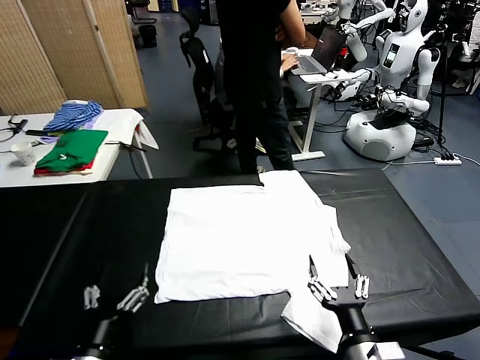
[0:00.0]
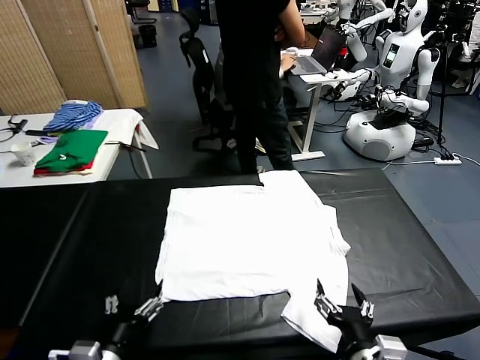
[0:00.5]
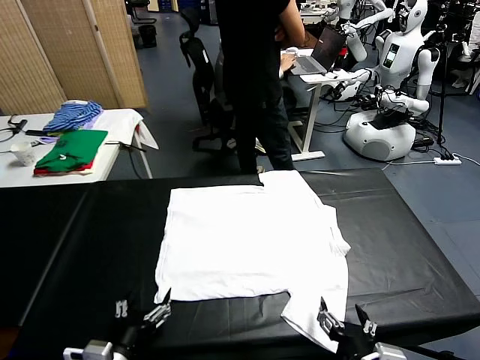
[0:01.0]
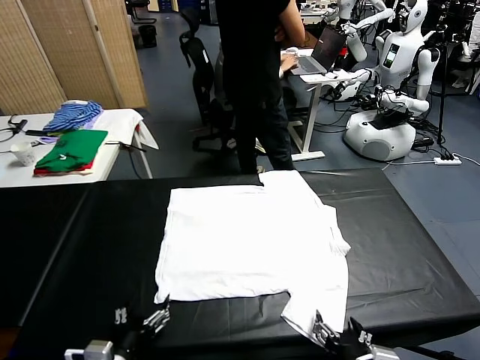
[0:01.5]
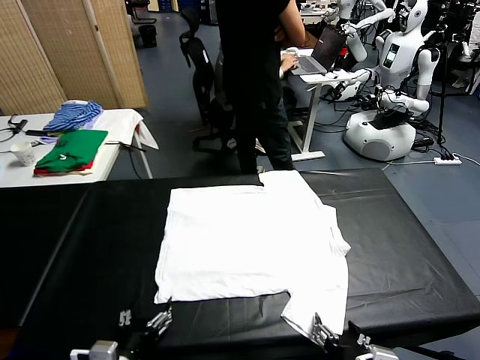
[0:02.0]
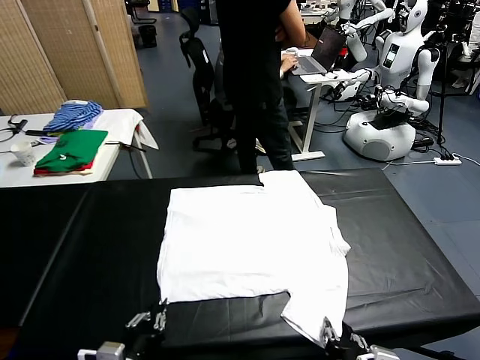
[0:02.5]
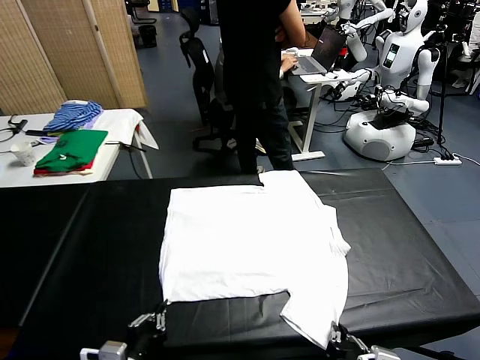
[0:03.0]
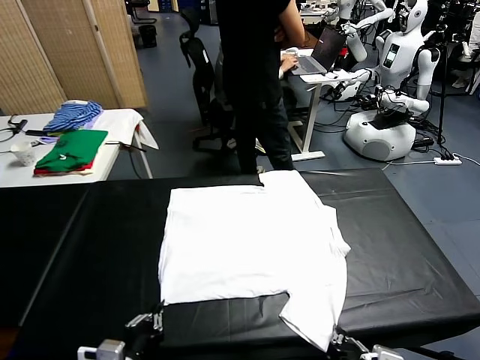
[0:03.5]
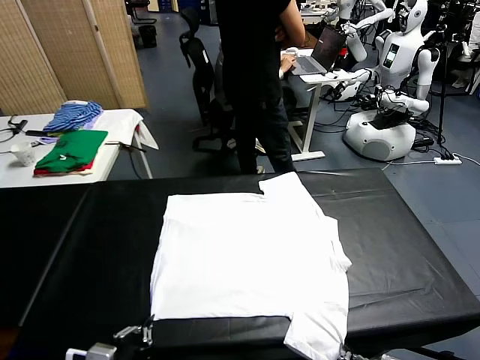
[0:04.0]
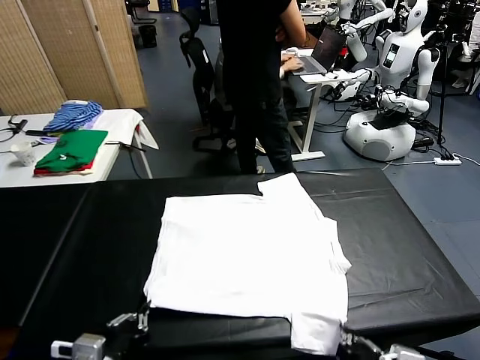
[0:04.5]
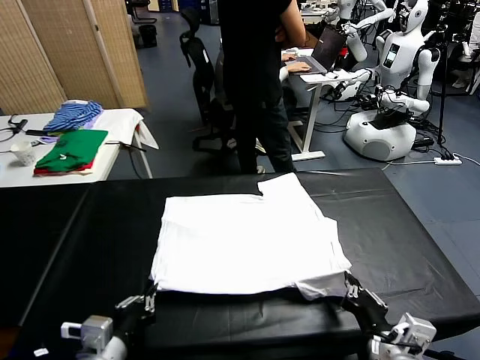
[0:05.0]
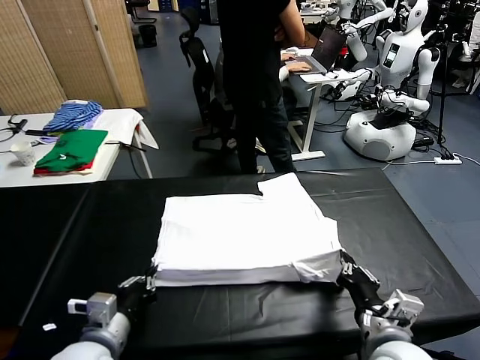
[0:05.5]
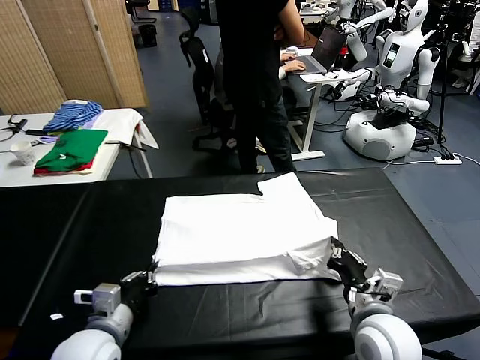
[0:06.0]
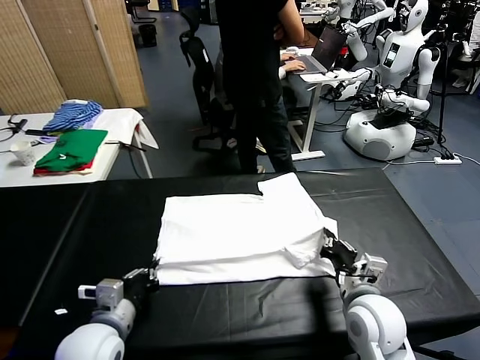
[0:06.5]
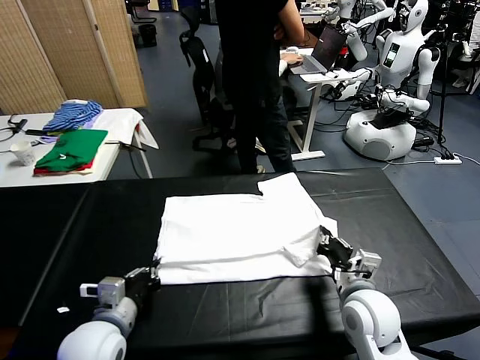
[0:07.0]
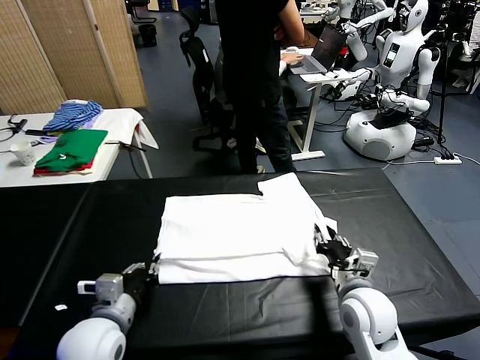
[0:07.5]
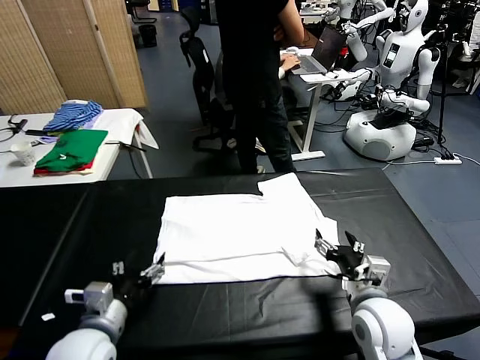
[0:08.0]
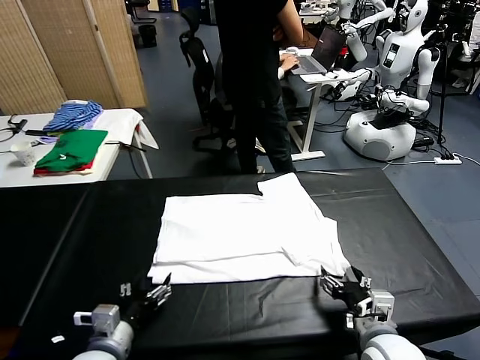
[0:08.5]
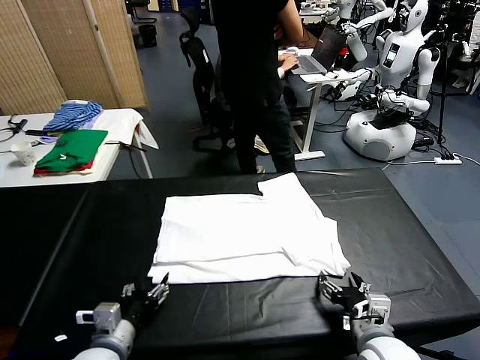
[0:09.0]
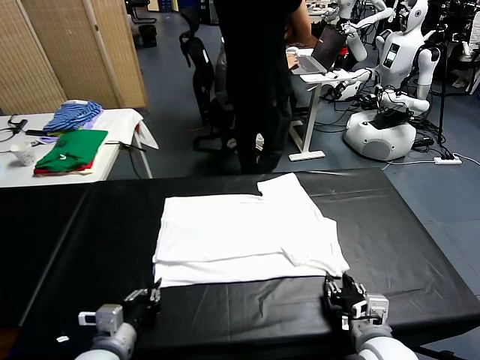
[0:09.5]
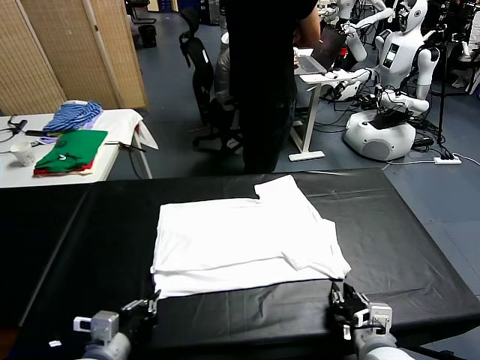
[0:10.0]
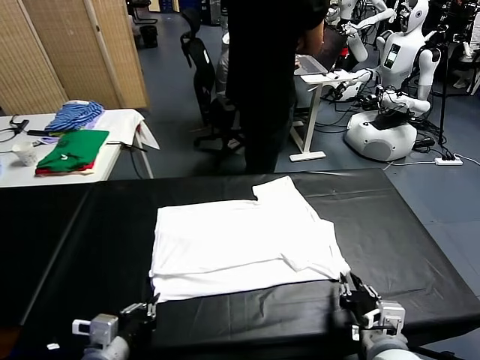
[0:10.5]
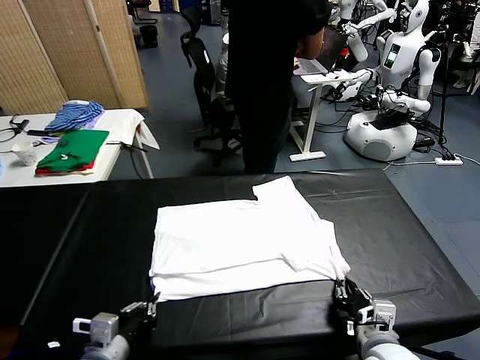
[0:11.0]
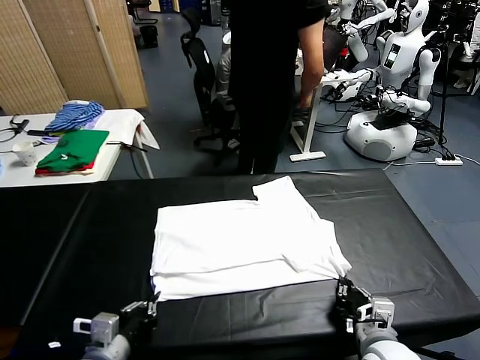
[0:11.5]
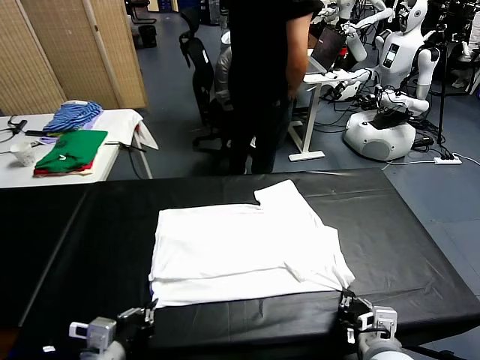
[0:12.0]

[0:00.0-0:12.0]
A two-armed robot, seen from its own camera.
Task of the whole recording: fold and organize the clothes.
Step, 0.0 to 4.5 s: use both grippers simultaneously to clamp the lower edge of the clothing fabric.
Step, 5.0 to 7.5 s: use both grippers to drag the lower edge of the fabric forward and fold it over the upper edge.
2.0 to 4.0 s: The right gripper closes its fingers, while the left gripper closes its fingers.
4.0 to 6.0 s: The left gripper heads forward, covering about 10 cm, while the right gripper is displaced forward by approximately 15 cm.
6.0 to 8.0 s: The left gripper opens up; the right gripper opens its fingers.
8.0 to 10.0 s: The left gripper closes; the right gripper travels backward by roughly 5 cm, and closes.
10.0 to 12.0 s: The grippers stay close to where they were, moving slightly.

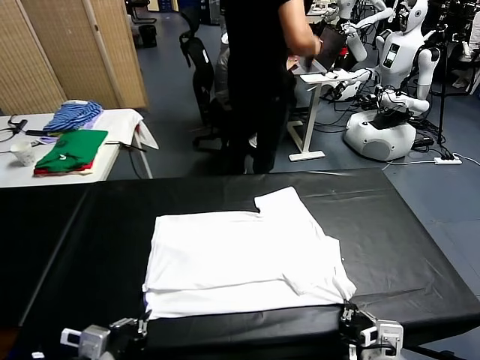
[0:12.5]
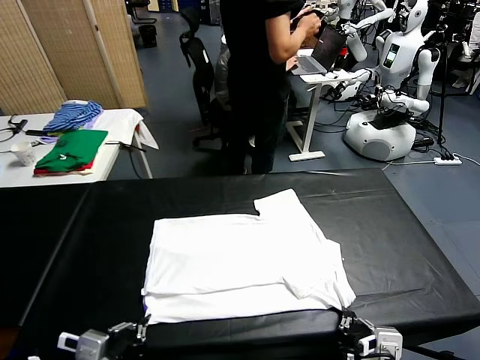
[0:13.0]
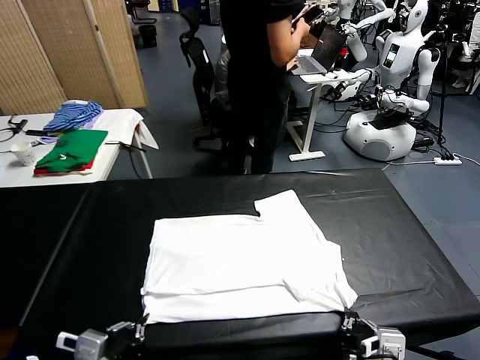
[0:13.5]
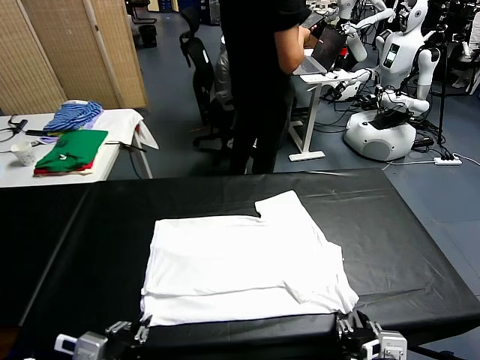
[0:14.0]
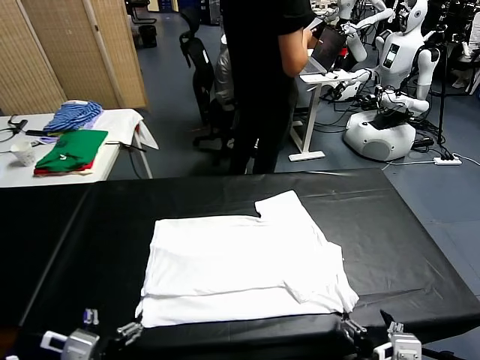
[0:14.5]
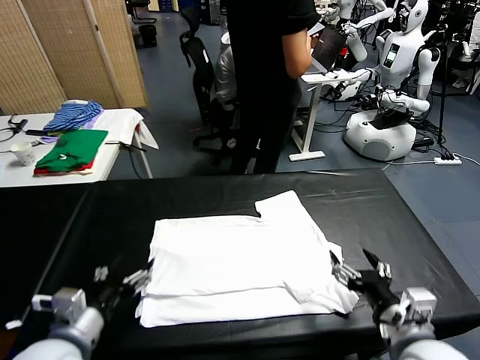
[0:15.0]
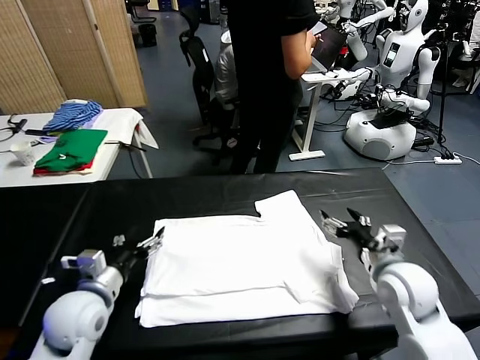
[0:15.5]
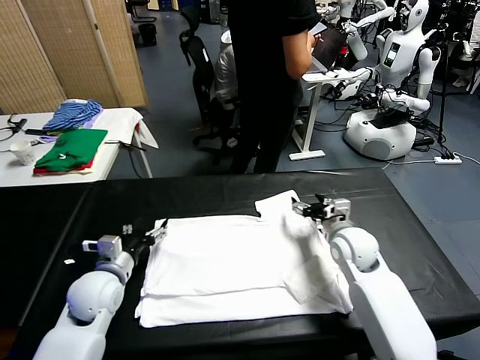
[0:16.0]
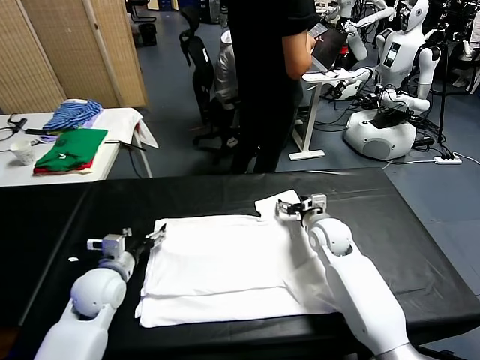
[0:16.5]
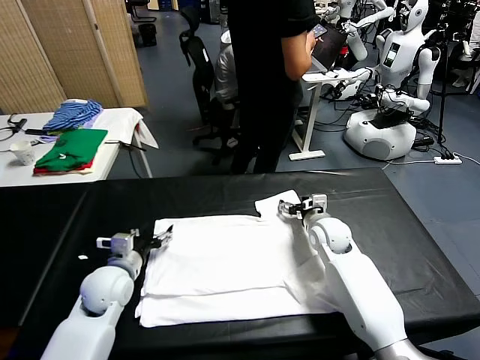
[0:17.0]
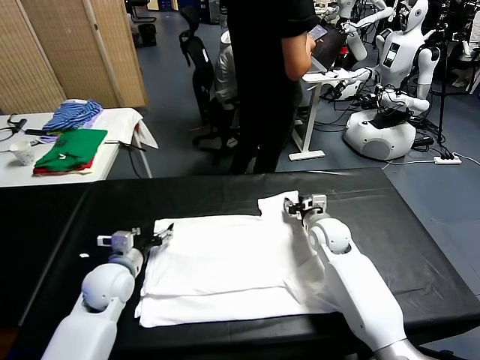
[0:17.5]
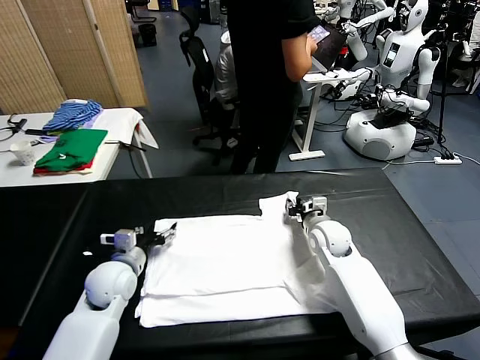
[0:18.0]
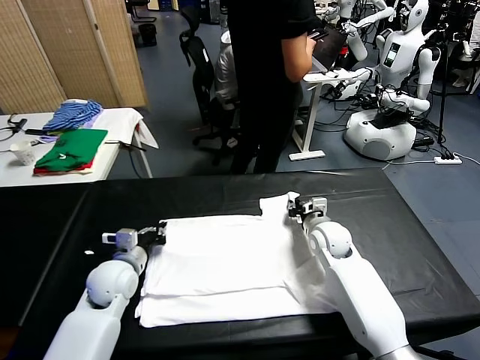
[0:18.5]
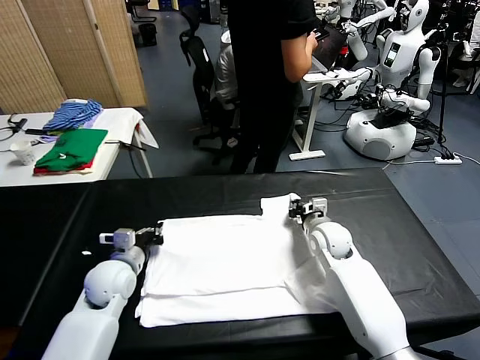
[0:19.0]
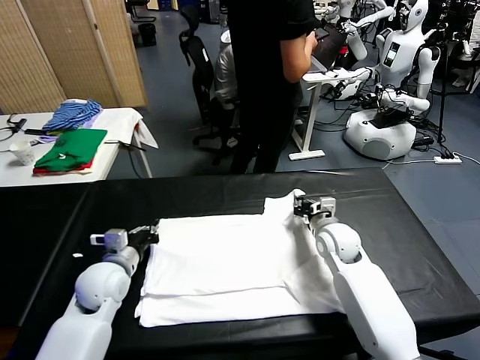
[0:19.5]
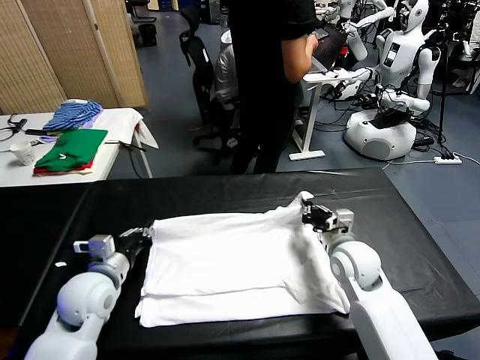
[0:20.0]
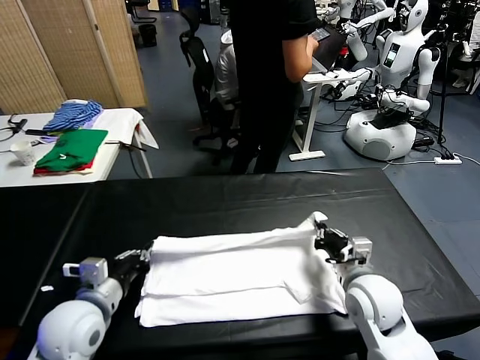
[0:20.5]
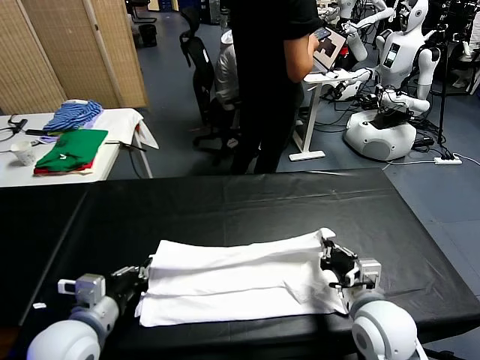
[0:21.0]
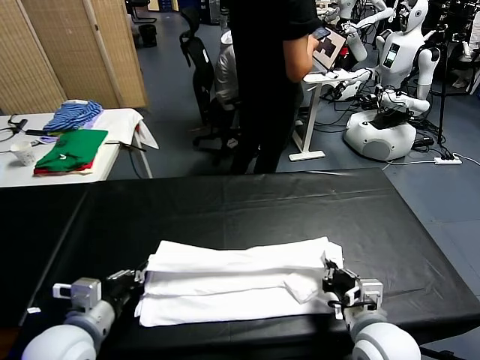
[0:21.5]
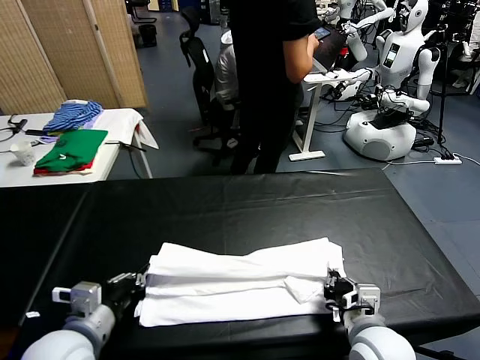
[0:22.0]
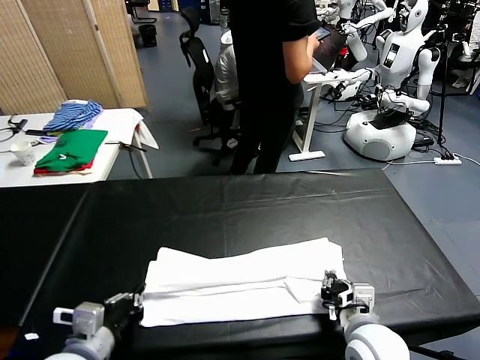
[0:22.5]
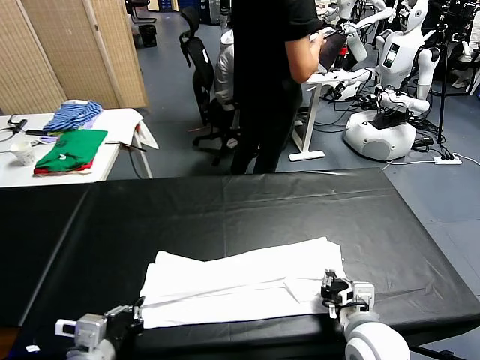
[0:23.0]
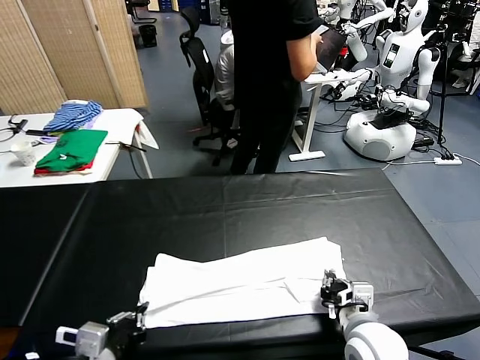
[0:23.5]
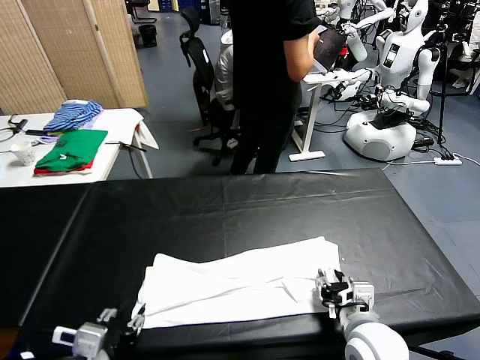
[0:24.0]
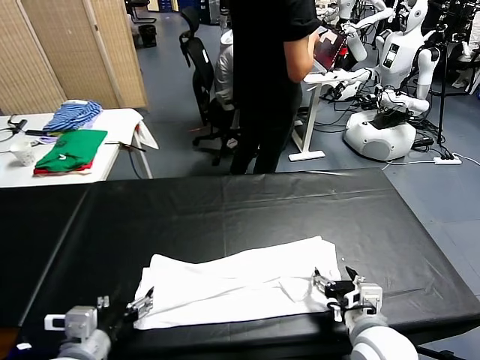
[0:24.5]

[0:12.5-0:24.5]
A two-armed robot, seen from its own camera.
Task of the whole recording: fold and organize the clothes.
Step, 14.5 to 19.5 s: use both grippers simultaneously to clamp the upper edge of the clothing fabric.
Step, 20.0 to 24.0 s: use both grippers to drag the upper edge of the fabric backward and fold it over the lower edge.
12.5 to 14.5 s: The right gripper opens; the left gripper opens.
14.5 to 16.5 s: The right gripper goes roughly 35 cm forward; the left gripper heads forward and downward, covering about 25 cm.
16.5 to 18.5 s: The right gripper closes up. The left gripper closes up.
18.5 to 20.5 s: The right gripper moves backward, approximately 20 cm. Meanwhile the left gripper moves backward and upward, roughly 15 cm.
20.5 to 22.5 s: Both grippers travel together backward, roughly 10 cm.
22.5 to 24.5 s: The left gripper opens; the right gripper opens its fingers.

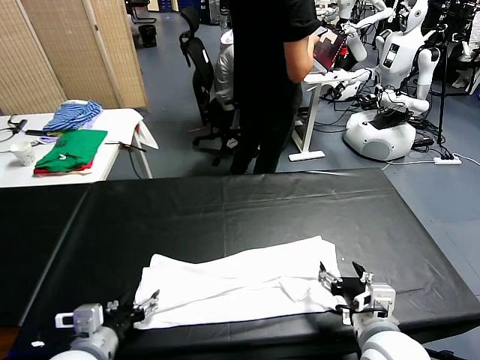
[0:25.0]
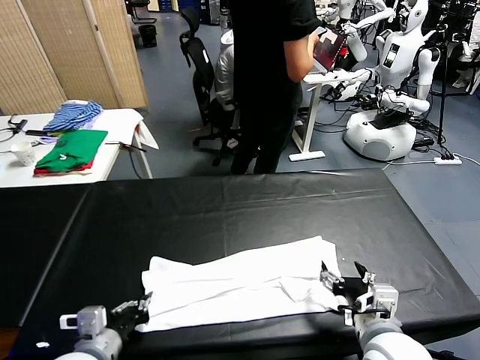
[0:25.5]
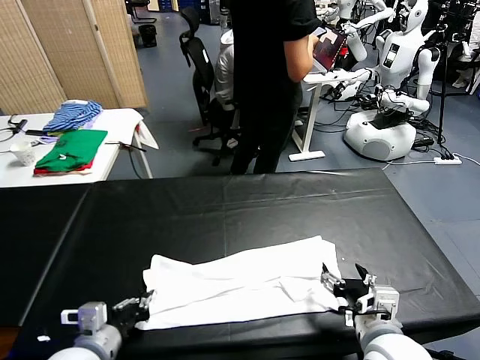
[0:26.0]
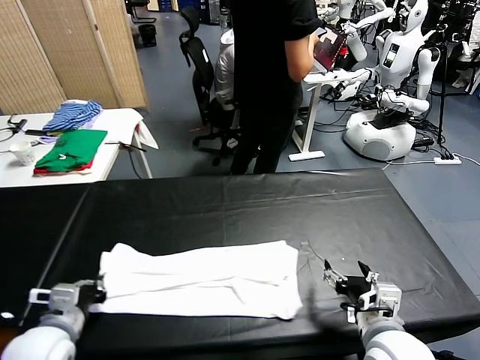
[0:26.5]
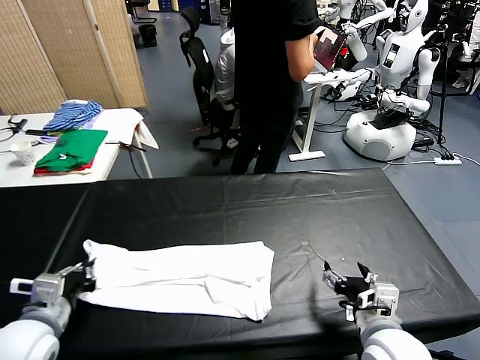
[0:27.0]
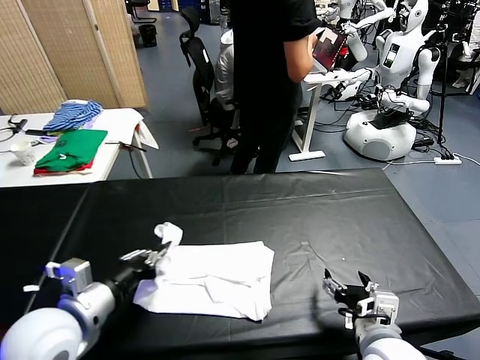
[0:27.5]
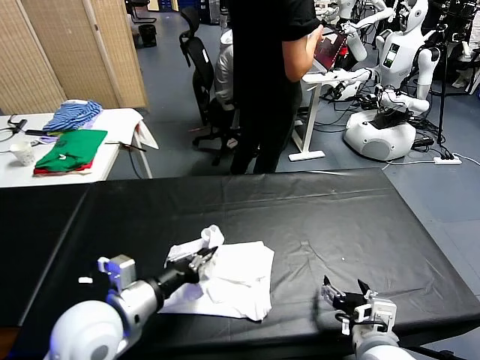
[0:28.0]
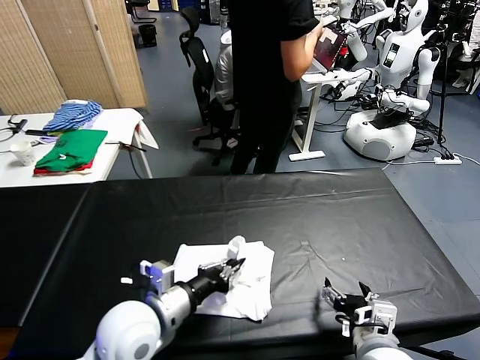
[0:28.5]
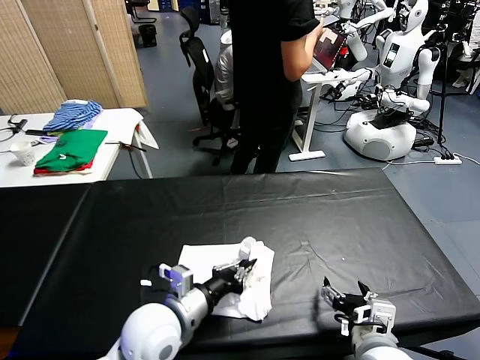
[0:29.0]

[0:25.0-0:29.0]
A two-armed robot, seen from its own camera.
Task of the whole recording: fold and organize the clothes.
Step, 25.0 to 26.0 s: use the left gripper to clamp the left edge of the fabric.
25.0 to 27.0 s: The left gripper is displaced to the left by some 5 cm, and closes its fingers.
27.0 to 29.0 s: The left gripper moves to the right, about 20 cm.
